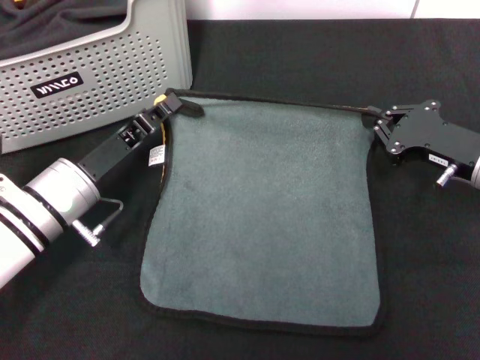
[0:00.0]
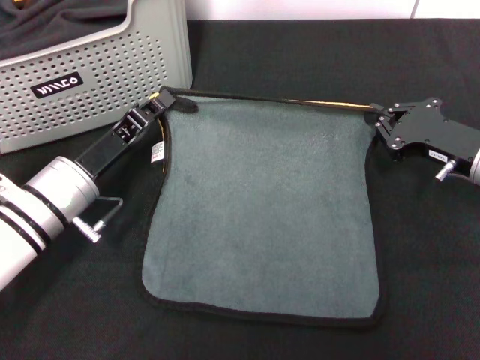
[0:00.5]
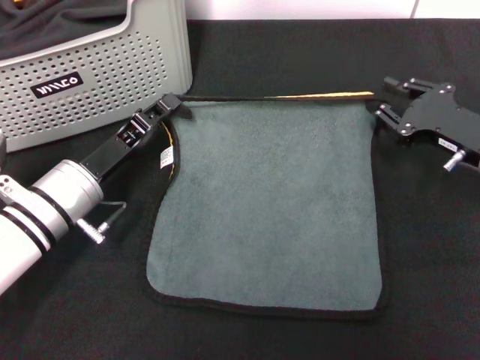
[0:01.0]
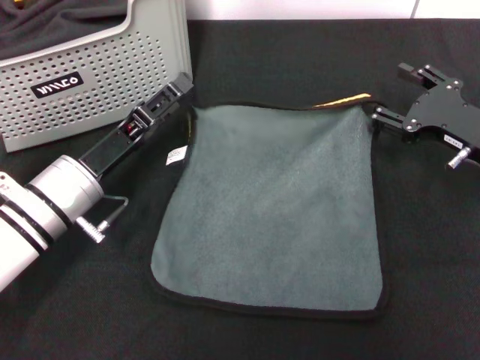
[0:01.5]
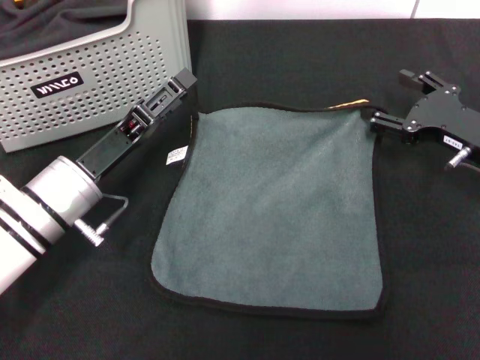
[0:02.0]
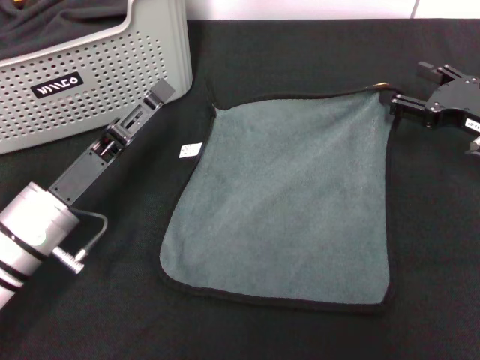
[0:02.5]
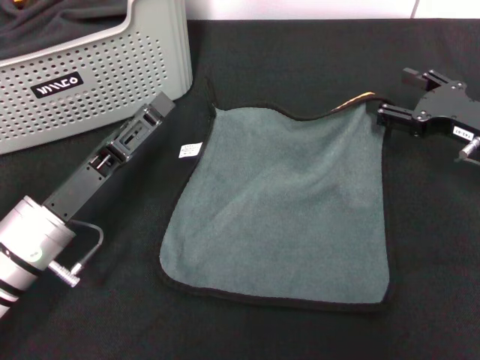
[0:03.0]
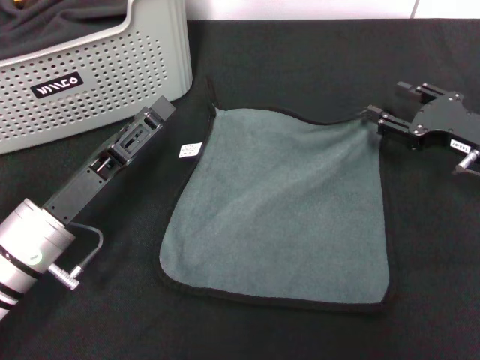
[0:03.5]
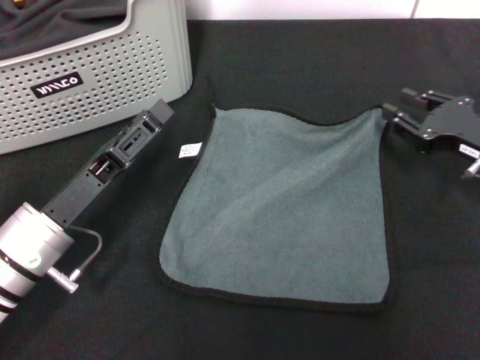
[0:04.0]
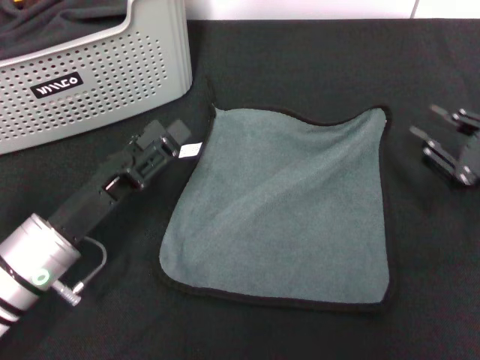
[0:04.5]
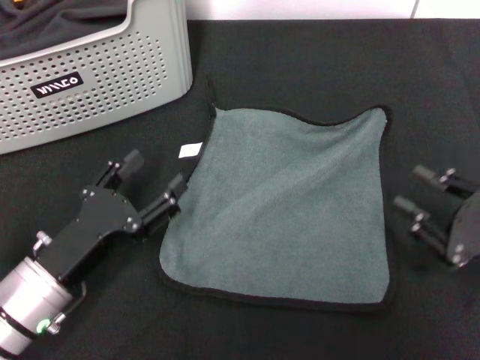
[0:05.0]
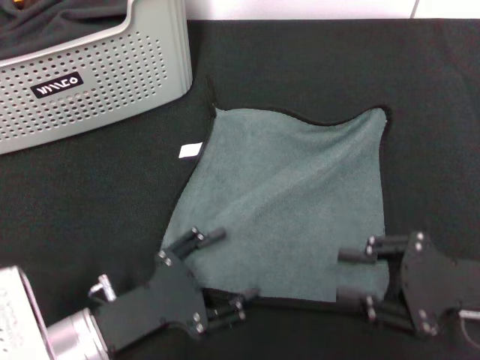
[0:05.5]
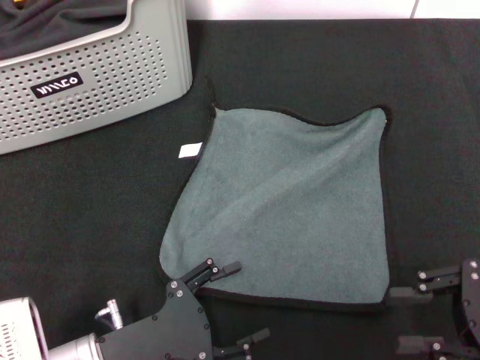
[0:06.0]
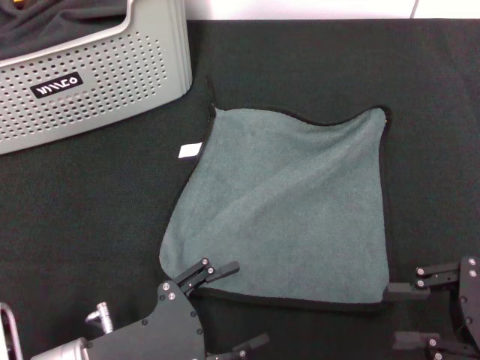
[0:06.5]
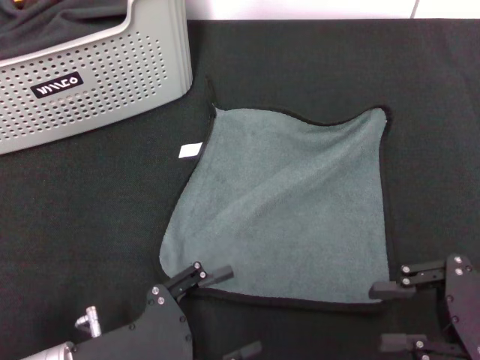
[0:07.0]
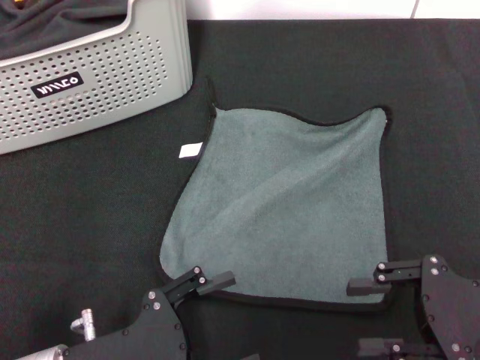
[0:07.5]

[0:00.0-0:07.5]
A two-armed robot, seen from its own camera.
Task of the whole recording: pick up the towel from the storage box and lay it flat on the black tablecloth.
Step, 0:00.0 to 0:03.5: Spread the towel flat with the right gripper.
0:00.0 to 0:02.0: The right gripper opens up, while the left gripper opens.
0:02.0 to 0:04.0: The right gripper closes up. Meanwhile the left gripper goes some 5 cm backward.
0:04.0 to 0:05.5: The left gripper goes approximately 5 cm backward. Meanwhile the right gripper shifts approximately 10 cm backward.
0:05.5 to 0:07.5: There are only small adjustments of the grippers.

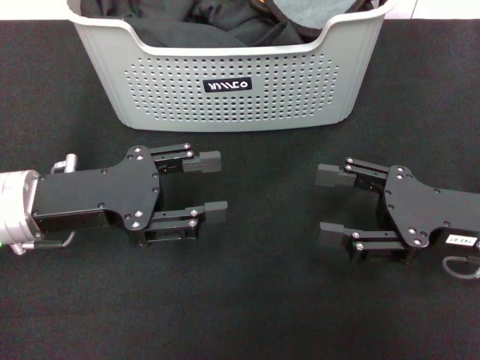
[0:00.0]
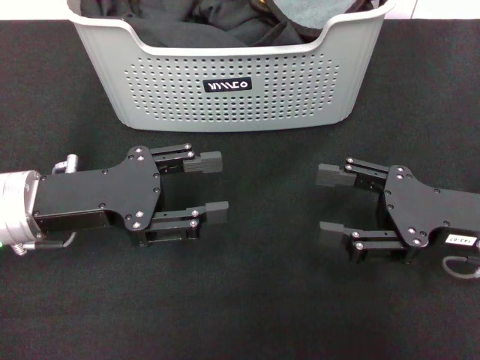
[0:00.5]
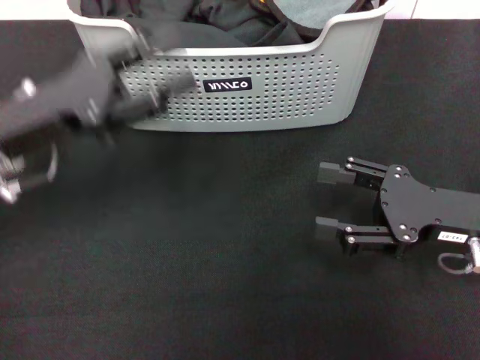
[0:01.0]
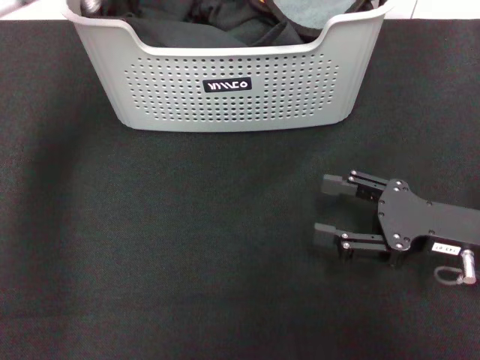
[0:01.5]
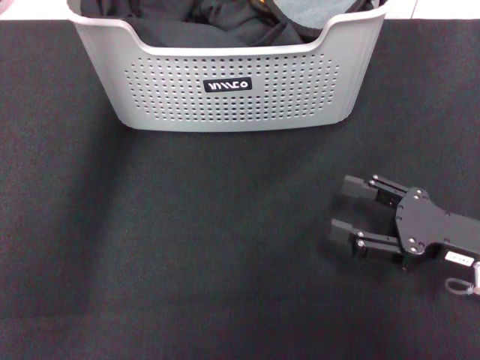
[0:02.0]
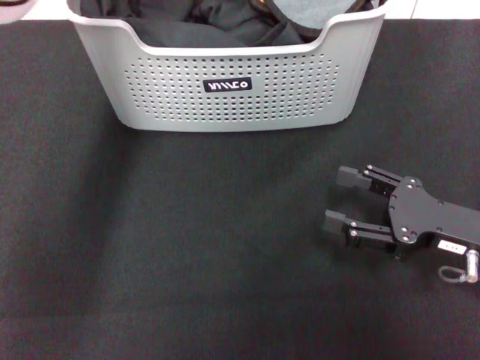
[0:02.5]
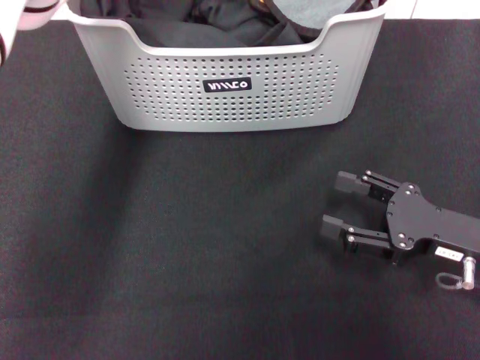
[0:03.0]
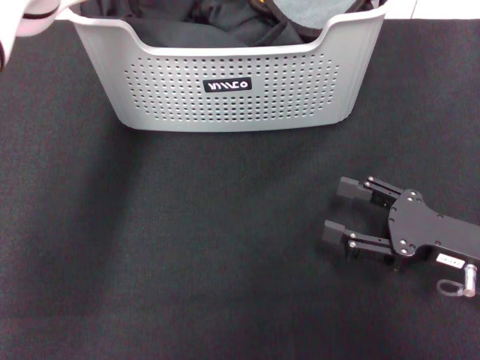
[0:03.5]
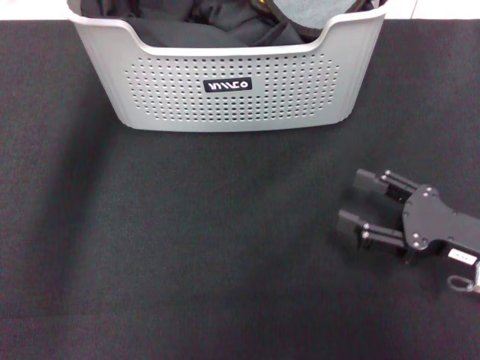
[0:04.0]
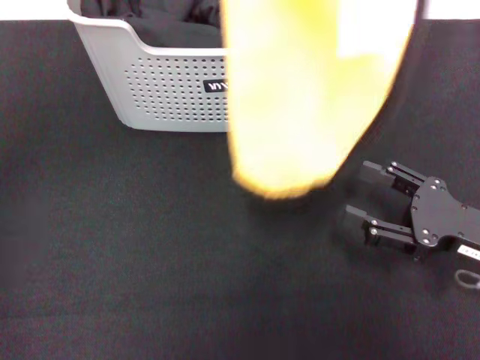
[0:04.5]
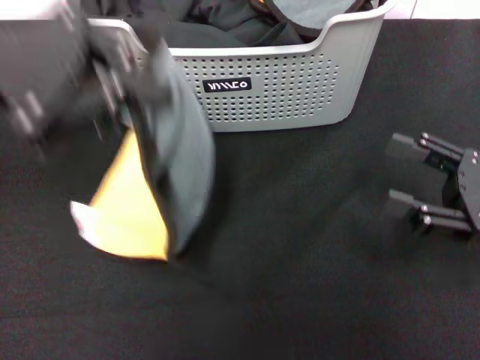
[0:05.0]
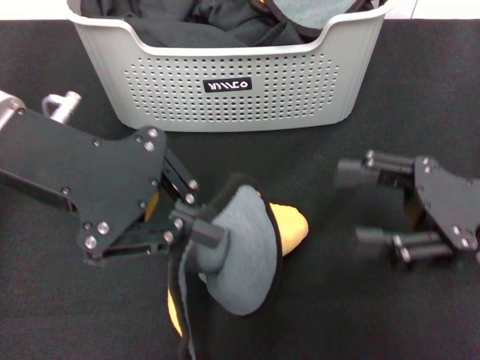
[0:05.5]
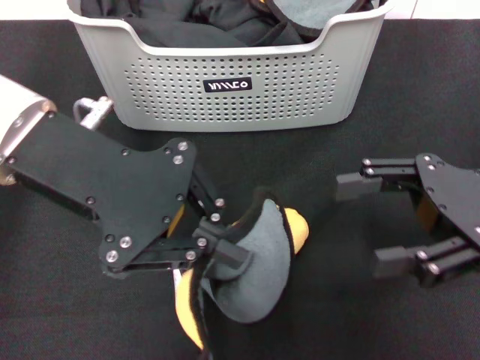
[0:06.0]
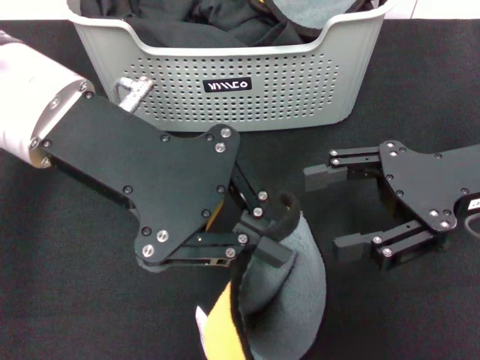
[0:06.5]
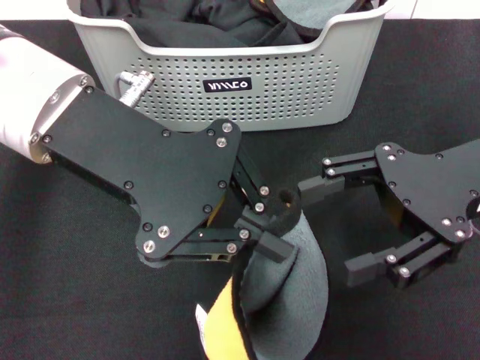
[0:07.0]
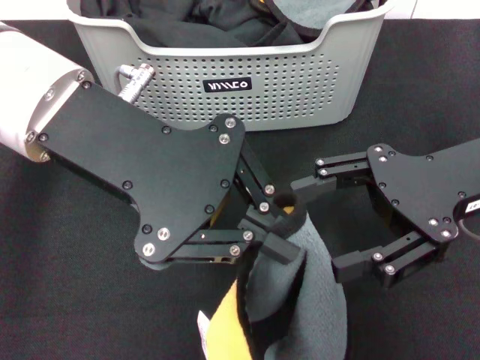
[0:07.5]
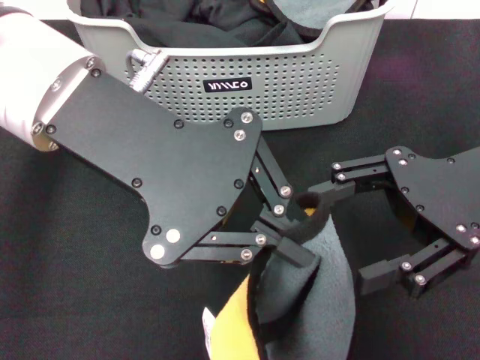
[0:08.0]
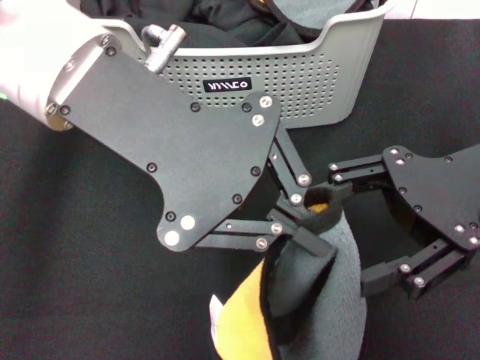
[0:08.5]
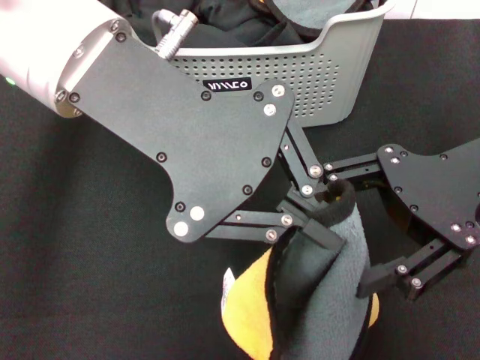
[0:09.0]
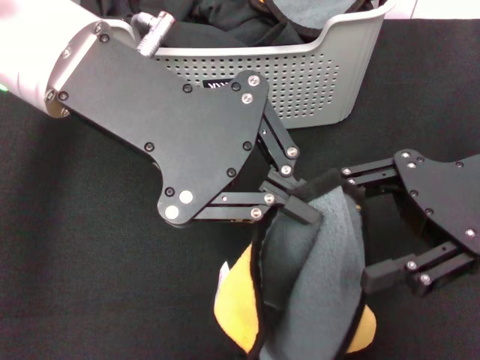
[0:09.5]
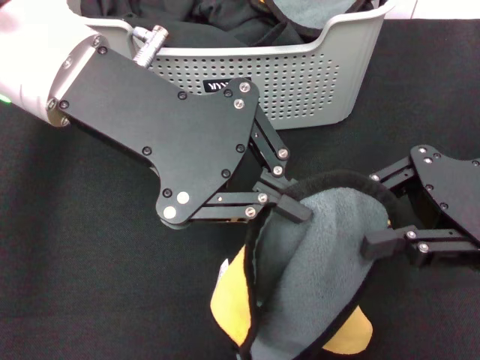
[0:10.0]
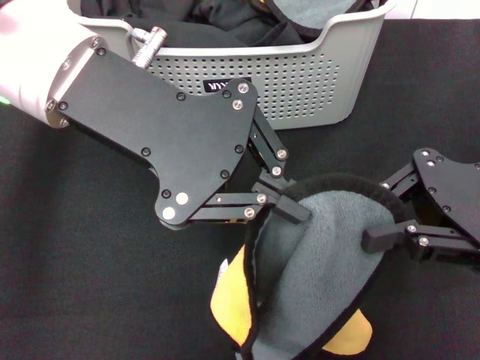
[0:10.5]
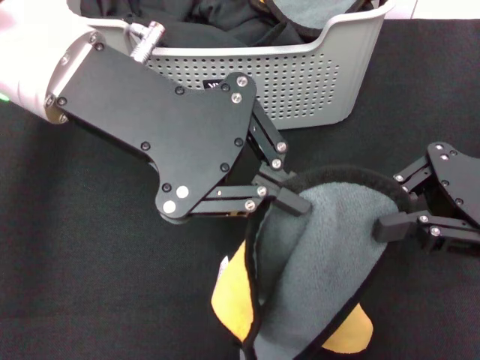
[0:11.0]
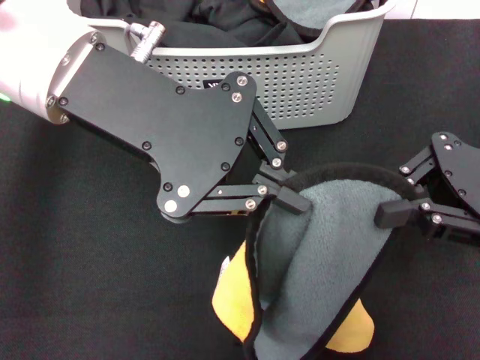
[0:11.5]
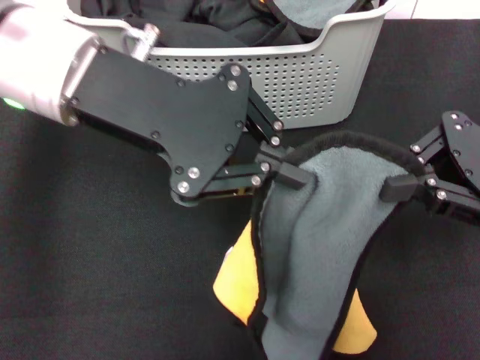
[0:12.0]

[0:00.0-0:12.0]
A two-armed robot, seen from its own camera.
Task of the whole recording: pick up the towel from the storage box and lay it flat on the black tablecloth.
Step, 0:00.0 to 0:03.5: Pick up a towel with the left gripper.
Step, 0:04.5 to 0:11.5: Spread the towel flat with the left gripper.
0:00.0 to 0:02.0: The left gripper travels forward, upward and to the right by roughly 25 cm.
0:02.0 to 0:04.0: The left gripper closes.
0:04.0 to 0:06.0: The left gripper travels backward and to the left by about 15 cm, while the right gripper goes roughly 10 cm upward.
0:06.0 to 0:08.0: The left gripper moves approximately 5 cm.
0:08.0 to 0:10.0: The right gripper closes its fingers.
0:10.0 to 0:12.0: The right gripper closes.

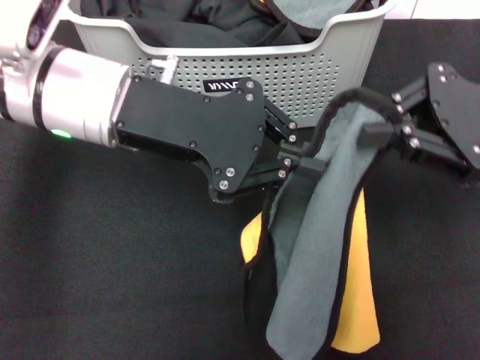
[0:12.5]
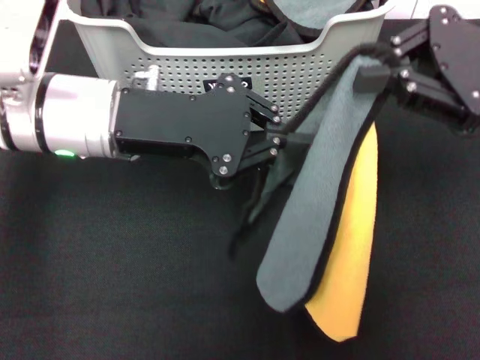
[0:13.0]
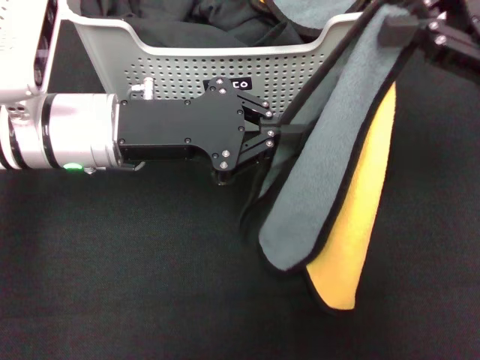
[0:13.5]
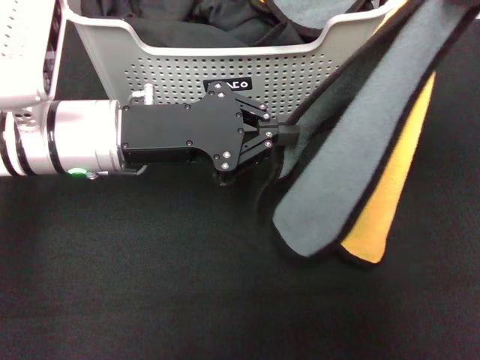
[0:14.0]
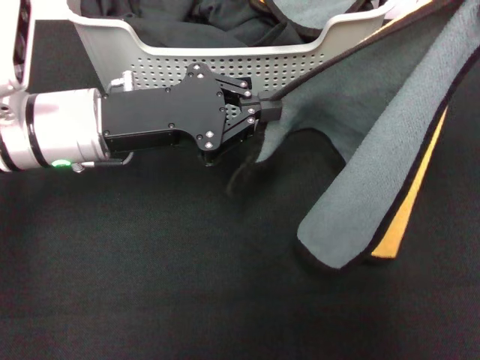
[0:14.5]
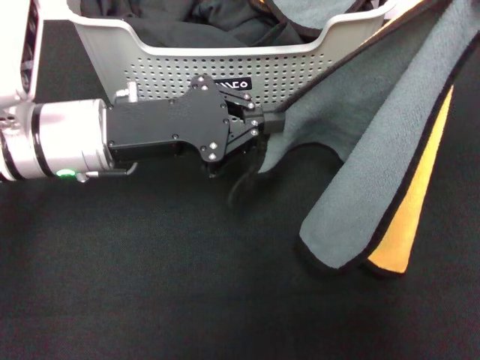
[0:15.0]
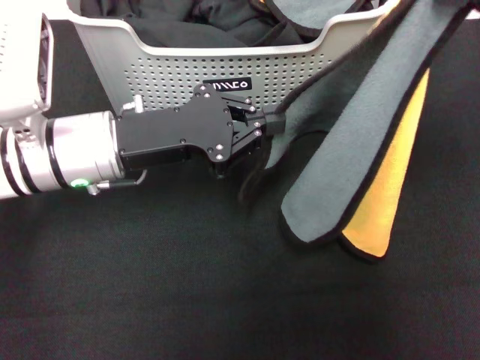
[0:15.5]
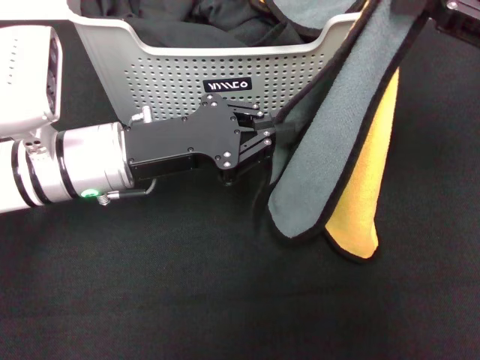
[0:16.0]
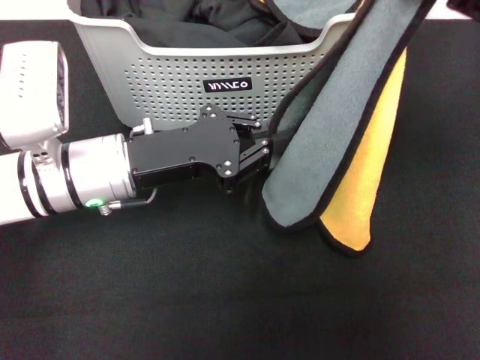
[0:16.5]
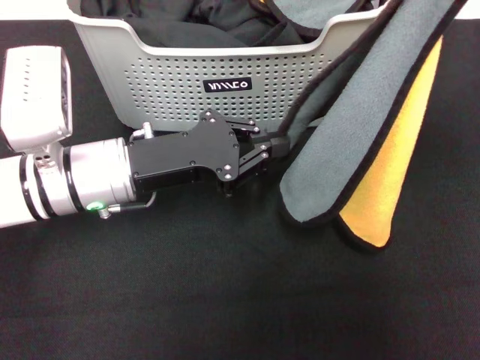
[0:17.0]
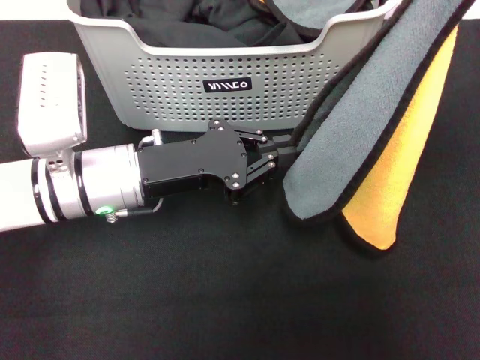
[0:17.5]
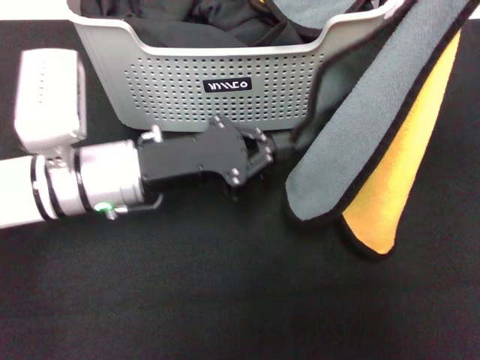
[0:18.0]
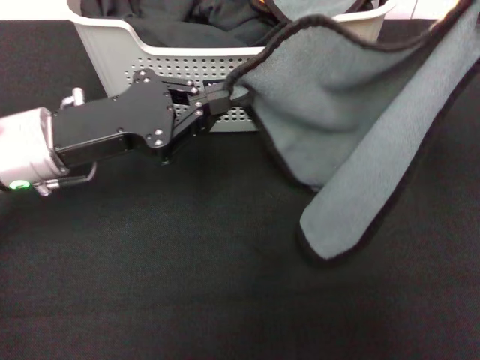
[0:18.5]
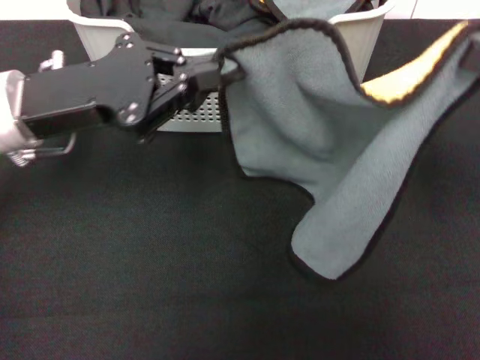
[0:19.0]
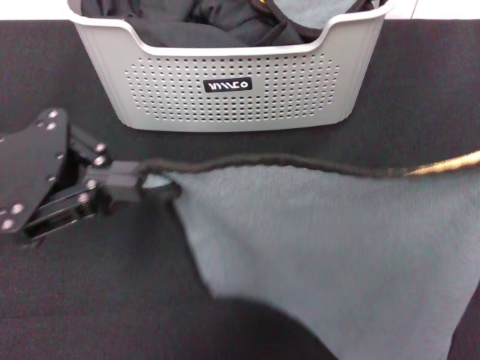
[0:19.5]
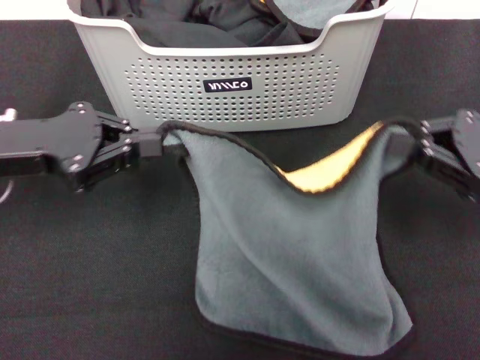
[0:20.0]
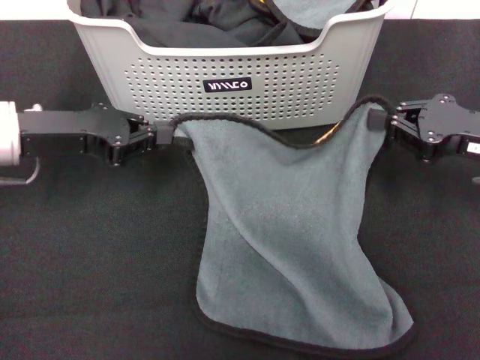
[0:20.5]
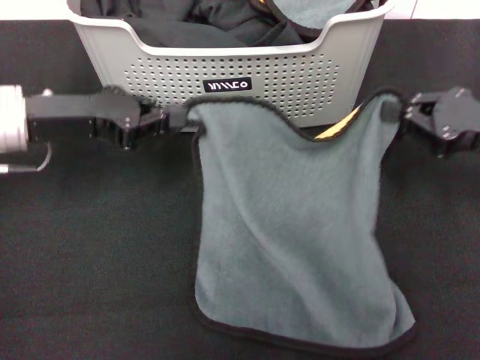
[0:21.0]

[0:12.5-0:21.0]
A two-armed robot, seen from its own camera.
Task of the whole recording: pick up the towel from the storage box and lay it flat on the black tablecloth.
0:12.5 to 0:14.5: The right gripper shifts approximately 10 cm upward and to the right. The left gripper shifts some 5 cm downward.
0:14.5 to 0:16.5: The left gripper moves roughly 5 cm.
0:16.5 to 0:19.0: The left gripper goes some 10 cm upward and to the left. Meanwhile the right gripper is displaced downward by some 5 cm.
0:19.0 to 0:21.0: The right gripper heads downward, covering approximately 10 cm, and goes backward and returns, approximately 10 cm each way.
